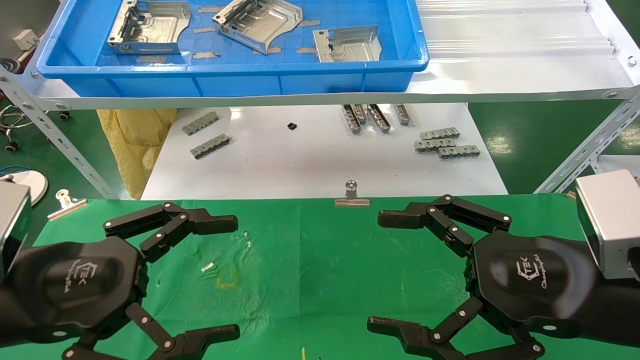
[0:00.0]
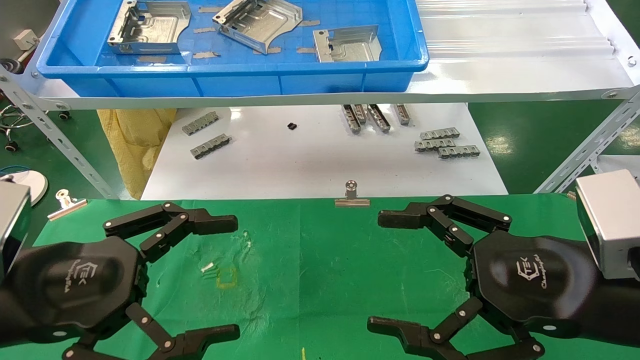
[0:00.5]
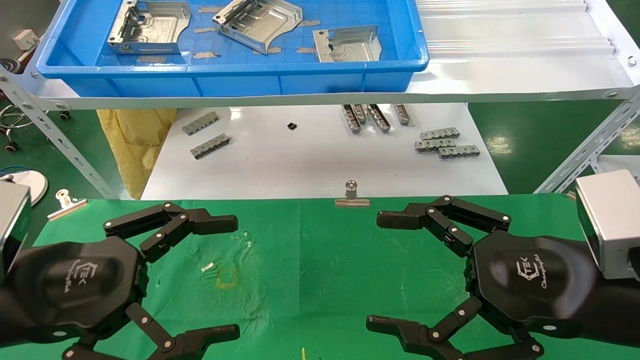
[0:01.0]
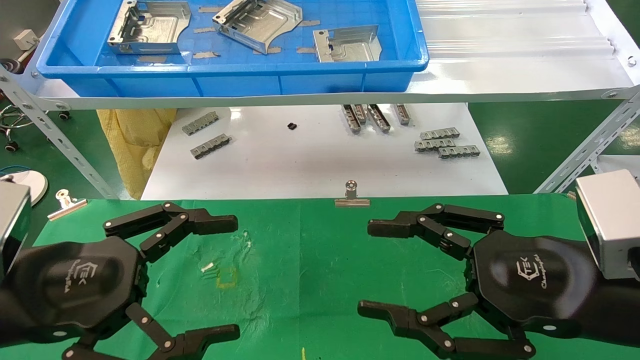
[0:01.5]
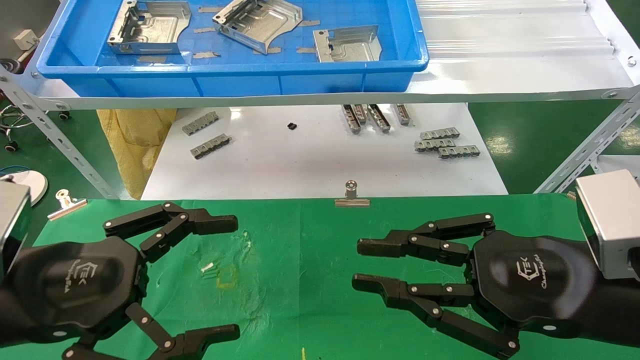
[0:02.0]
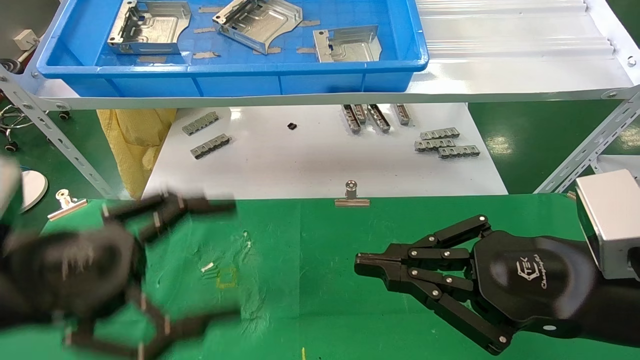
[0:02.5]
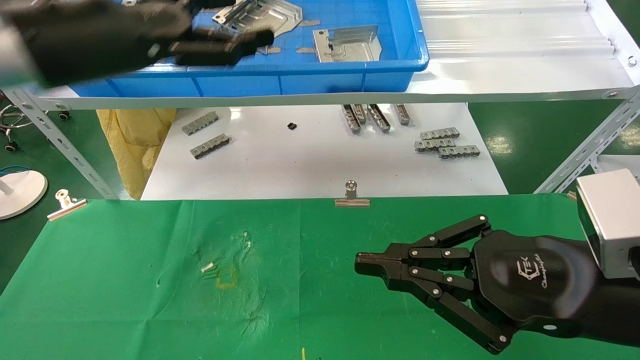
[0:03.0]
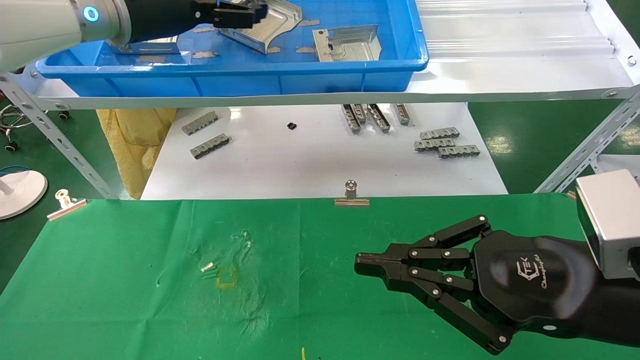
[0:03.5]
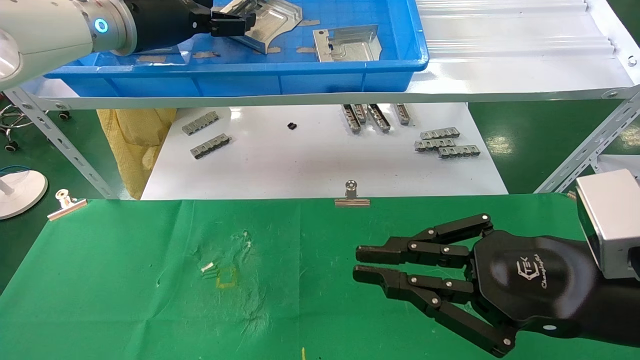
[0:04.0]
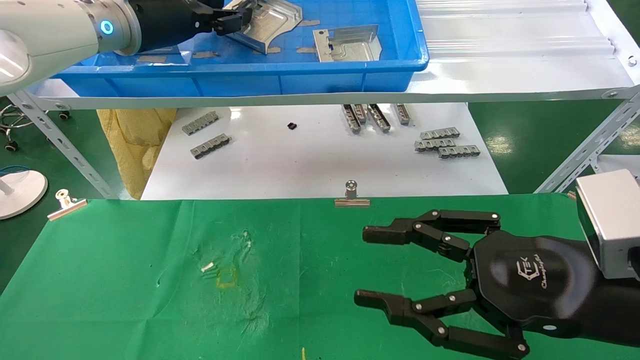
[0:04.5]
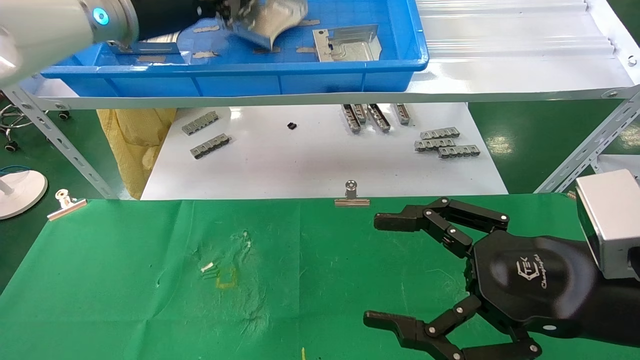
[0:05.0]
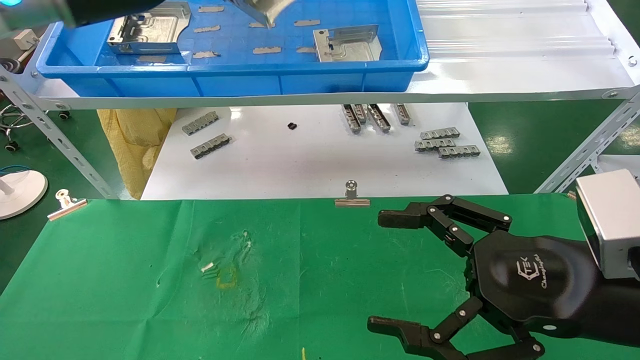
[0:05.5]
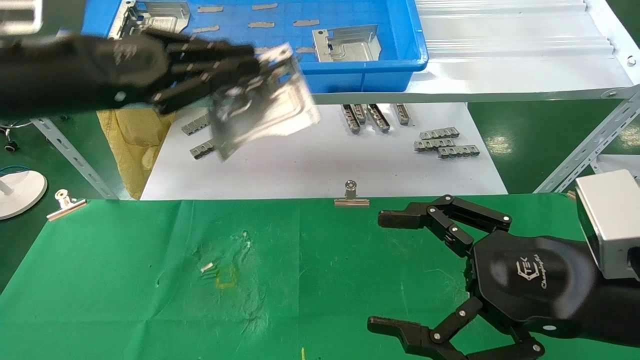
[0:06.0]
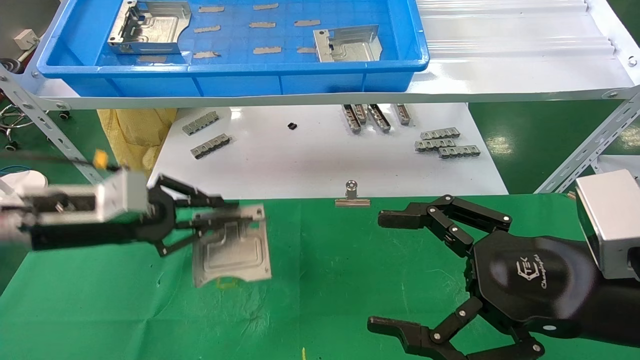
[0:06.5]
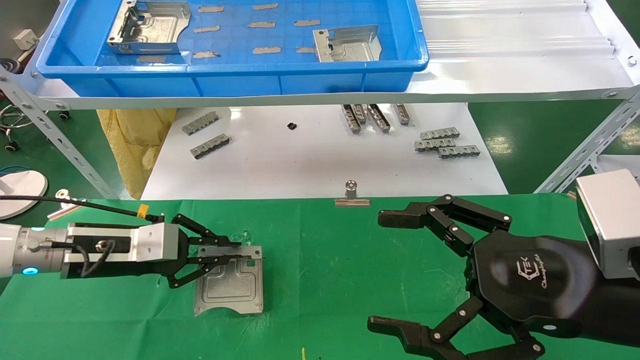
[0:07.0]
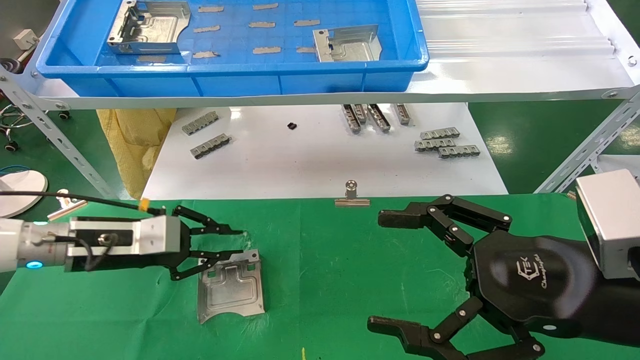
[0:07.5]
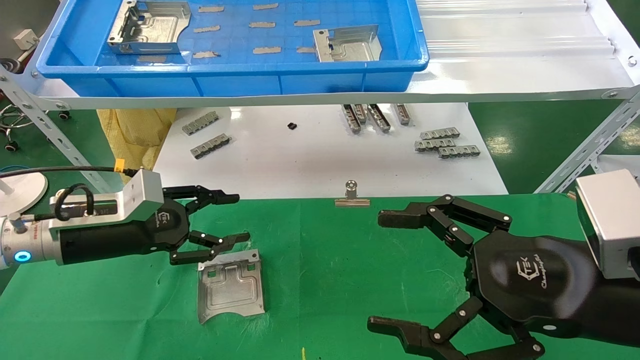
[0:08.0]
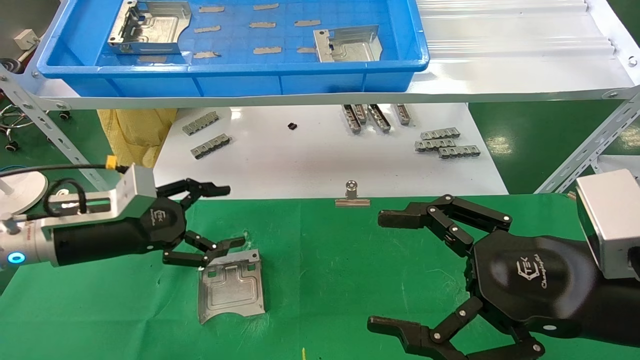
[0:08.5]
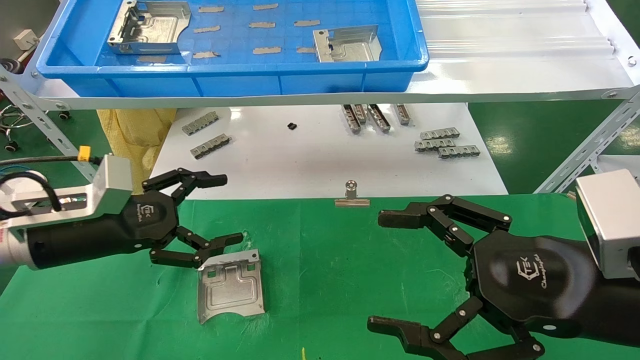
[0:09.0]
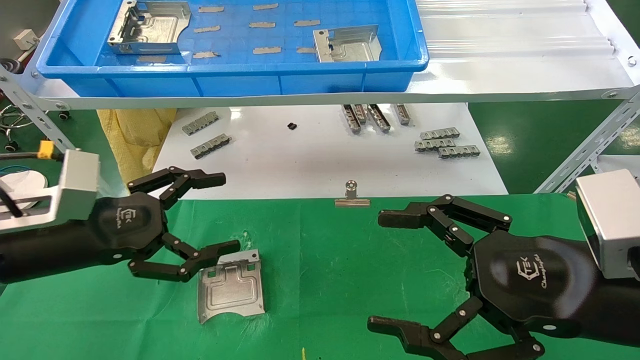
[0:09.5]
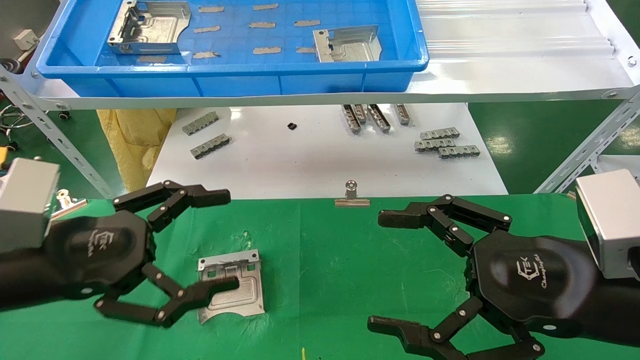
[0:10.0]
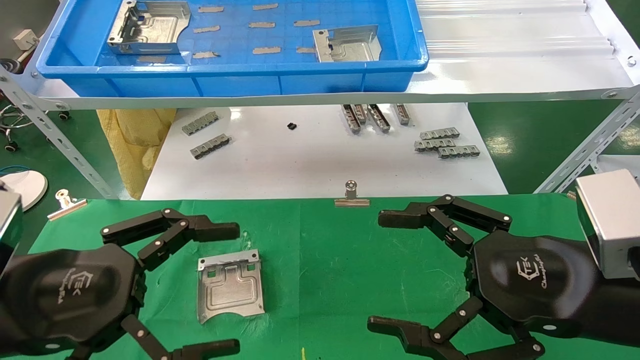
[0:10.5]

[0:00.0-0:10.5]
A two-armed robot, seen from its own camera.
Task of the whole recording: use the mechanical arm to pick up the parts and place them on the table.
Step, 0:03.0 to 0:05.0: Pick up the hard drive bracket from the feeding area.
Step, 0:05.5 to 0:07.0: Place the hard drive bracket into the box.
0:00.0 to 0:02.0: The right gripper closes its fingers.
0:02.0 to 0:04.0: The left gripper shifts approximately 35 cm forward and upward.
0:04.0 to 0:06.5: The left gripper goes approximately 25 cm downward and backward, and closes up, while the right gripper opens.
0:06.5 to 0:08.5: The left gripper opens its fingers.
0:08.5 to 0:10.5: The left gripper shifts some 15 cm backward.

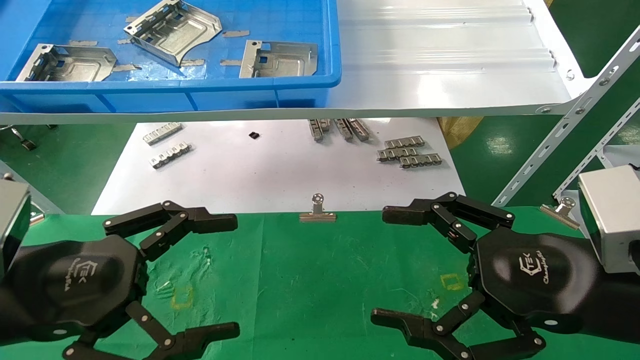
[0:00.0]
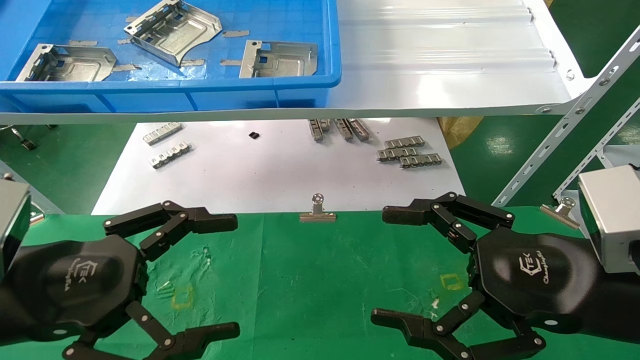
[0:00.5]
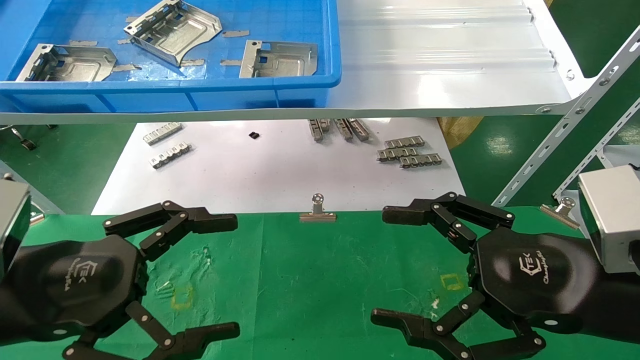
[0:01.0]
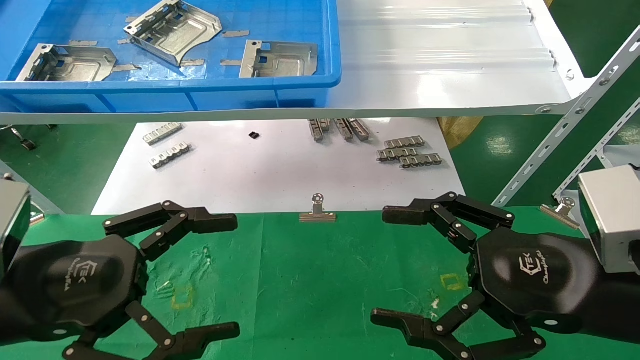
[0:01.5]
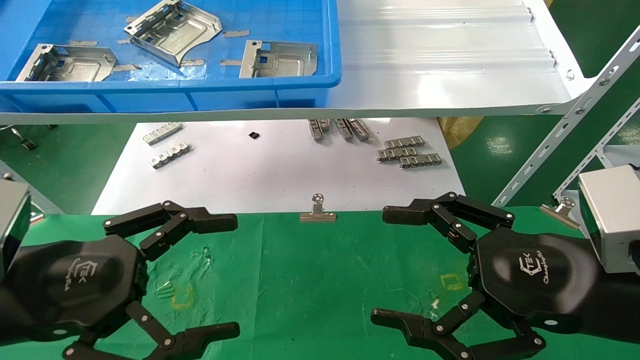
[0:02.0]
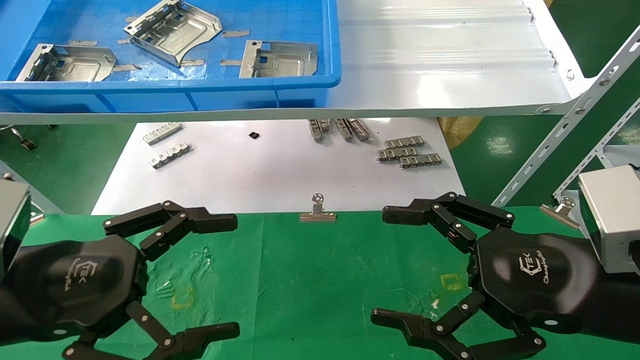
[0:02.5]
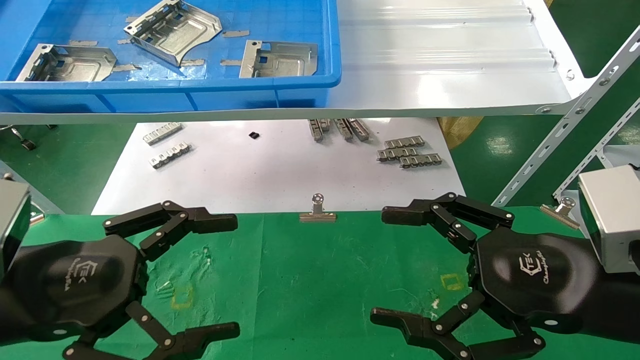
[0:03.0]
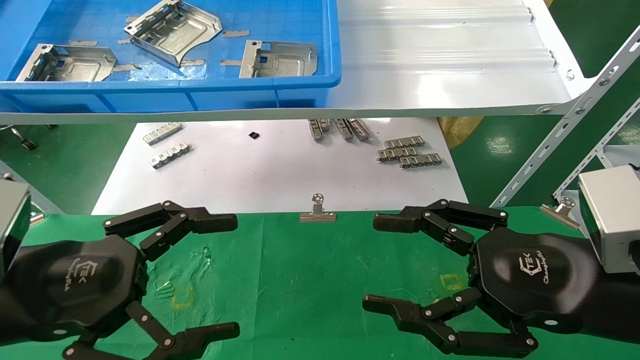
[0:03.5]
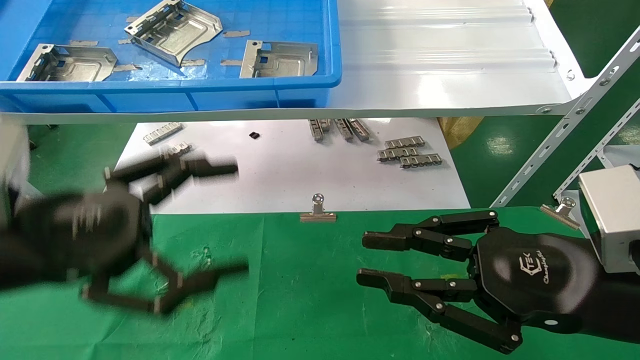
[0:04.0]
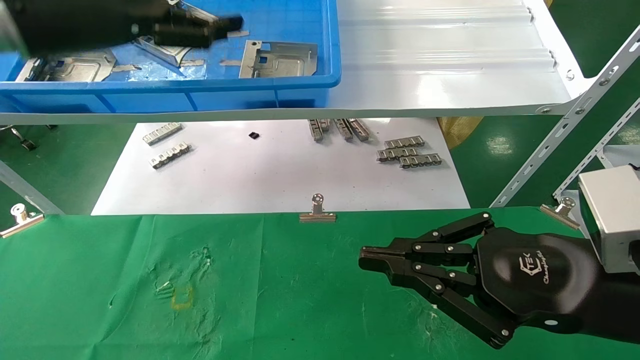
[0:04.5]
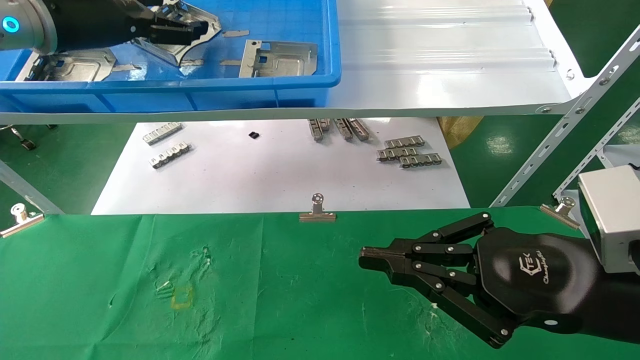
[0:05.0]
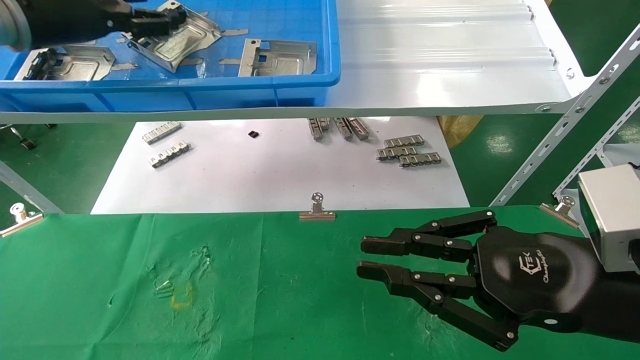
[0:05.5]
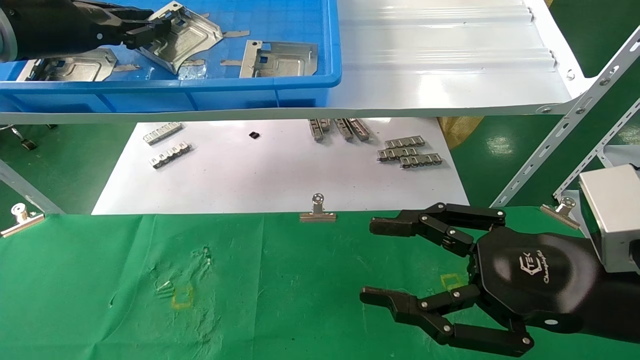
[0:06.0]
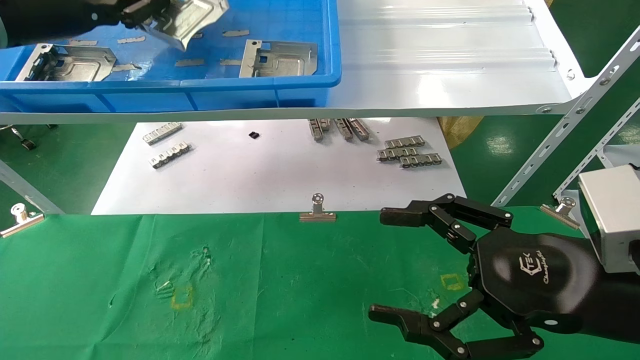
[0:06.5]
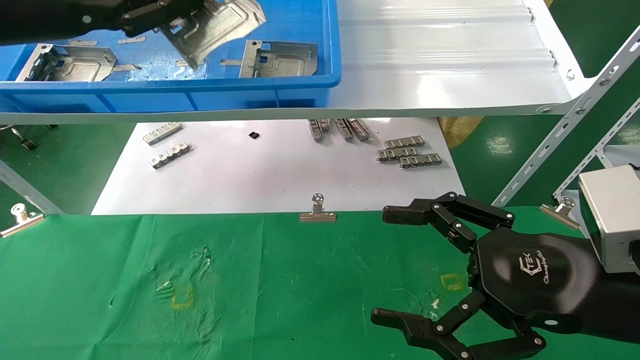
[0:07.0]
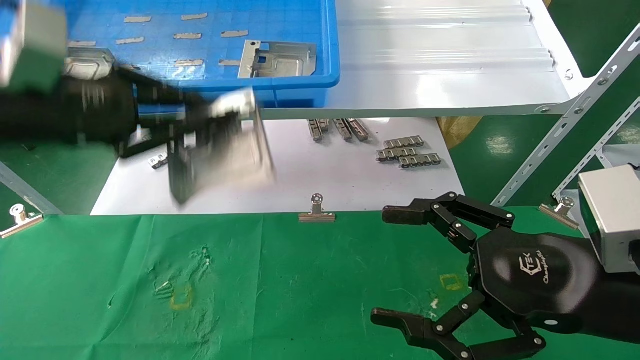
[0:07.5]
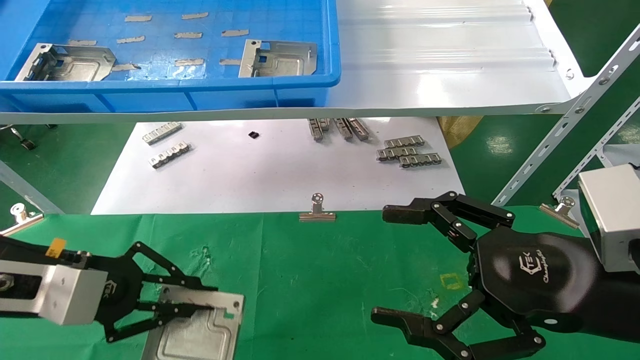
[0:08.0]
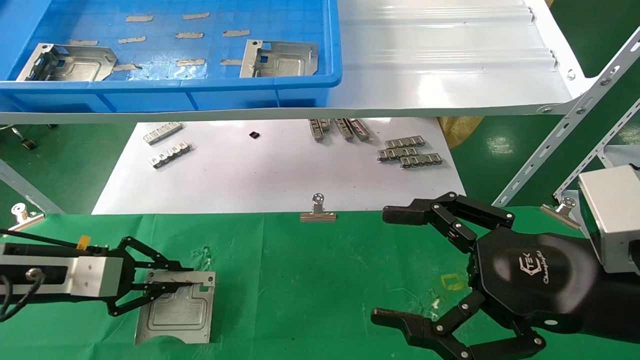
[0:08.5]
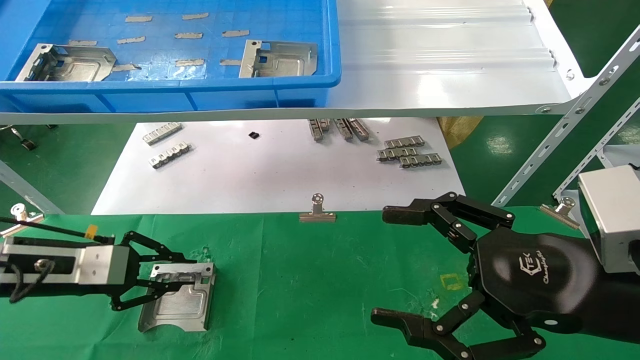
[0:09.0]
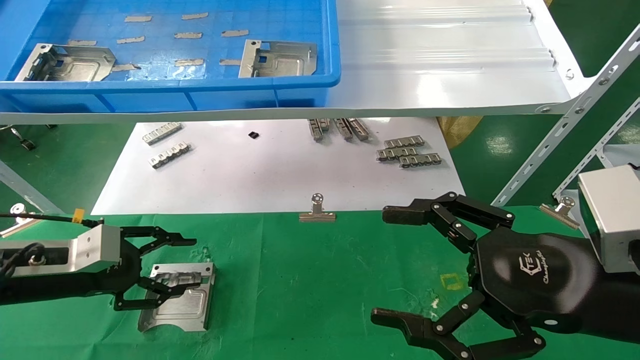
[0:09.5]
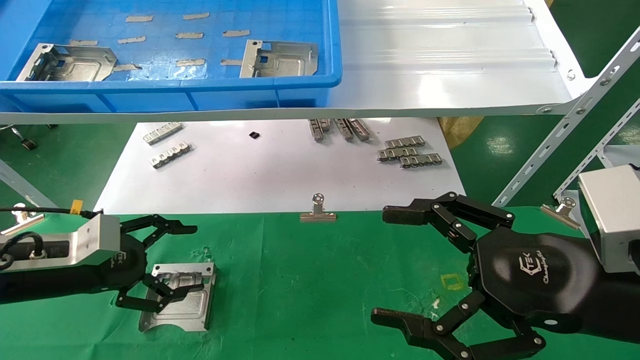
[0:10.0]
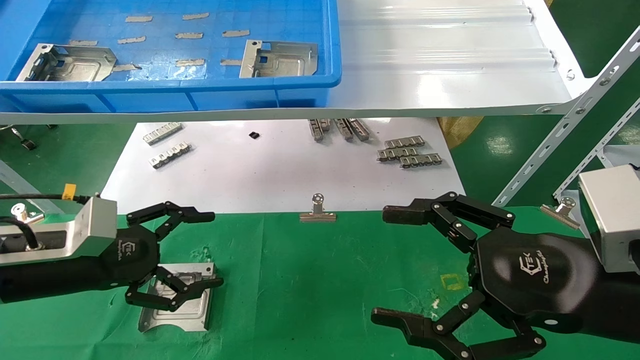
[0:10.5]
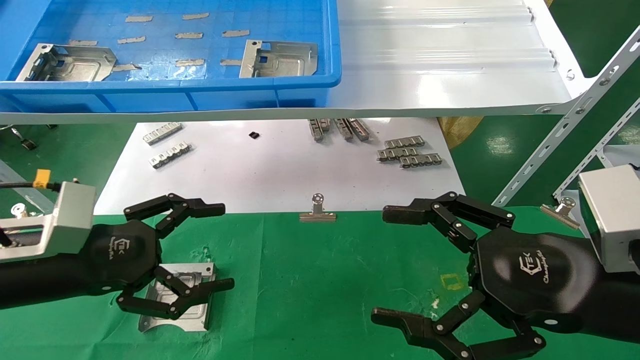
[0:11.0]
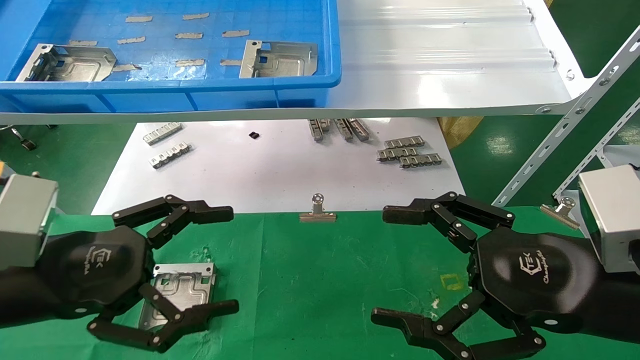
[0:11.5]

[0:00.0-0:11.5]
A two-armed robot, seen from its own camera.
Task of the whole recording: use the mechanical arm to pick up the parts and place them on the table.
Step, 0:04.5 to 0:06.0: Pick up the hard drive bracket from the feeding area.
Step, 0:06.5 to 0:09.0: Place the hard drive bracket into the box.
0:00.0 to 0:02.0: Both grippers stay about where they are.
0:02.0 to 0:04.0: The right gripper closes. Meanwhile the left gripper shifts approximately 5 cm upward.
0:04.0 to 0:06.0: The right gripper closes, then reopens; the left gripper goes some 25 cm forward, upward and to the left, and closes up.
0:06.0 to 0:07.5: The right gripper opens its fingers, while the left gripper shifts some 15 cm backward and downward.
0:07.5 to 0:09.5: The left gripper heads downward, covering approximately 20 cm, and opens its fingers.
0:09.5 to 0:11.5: The left gripper goes about 15 cm backward, to the right and upward, and opens up.
